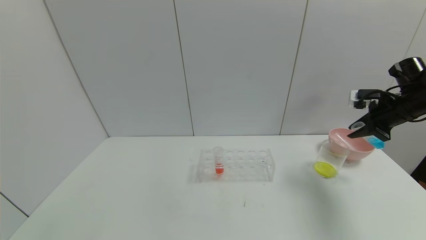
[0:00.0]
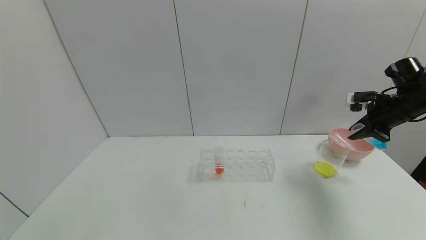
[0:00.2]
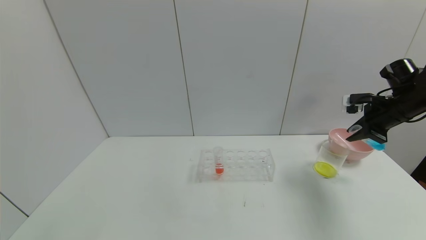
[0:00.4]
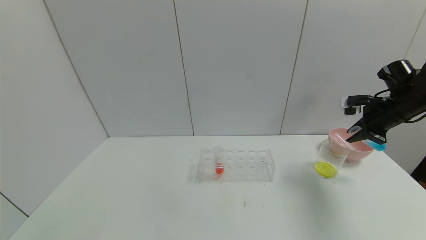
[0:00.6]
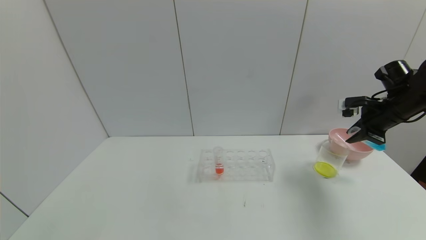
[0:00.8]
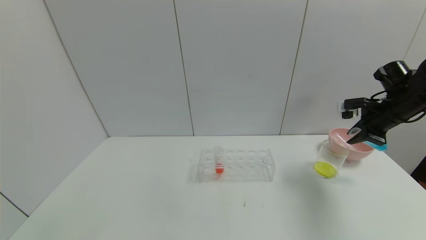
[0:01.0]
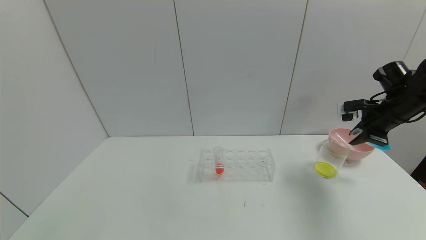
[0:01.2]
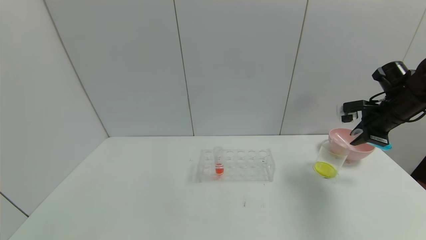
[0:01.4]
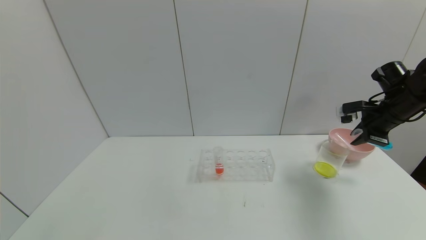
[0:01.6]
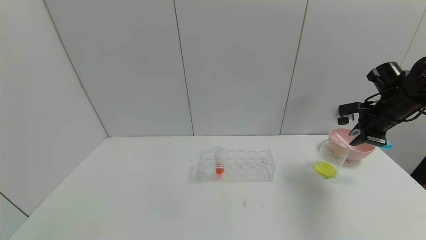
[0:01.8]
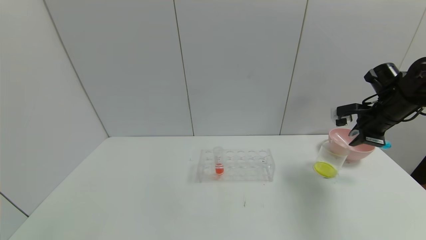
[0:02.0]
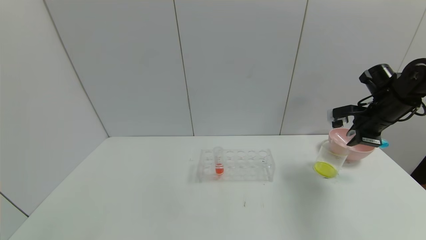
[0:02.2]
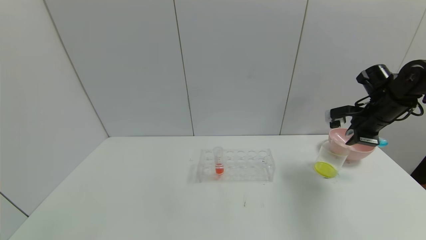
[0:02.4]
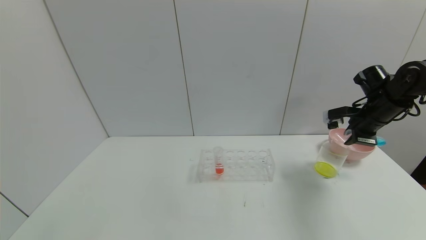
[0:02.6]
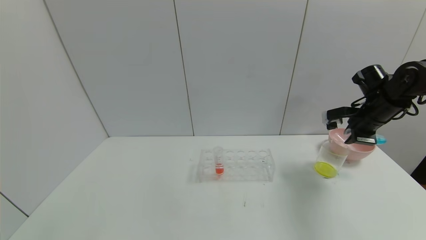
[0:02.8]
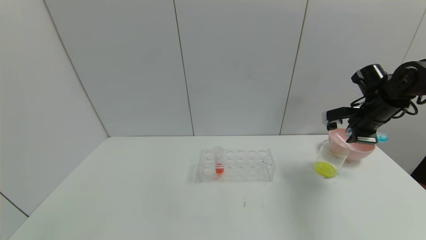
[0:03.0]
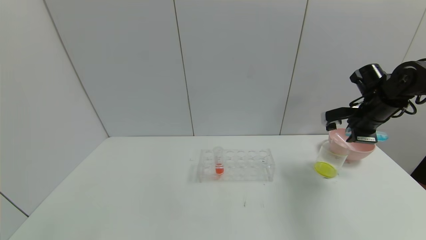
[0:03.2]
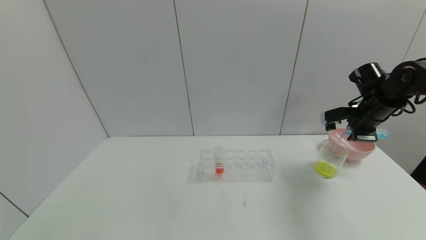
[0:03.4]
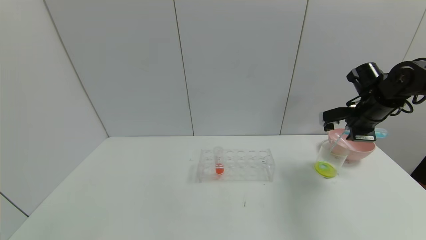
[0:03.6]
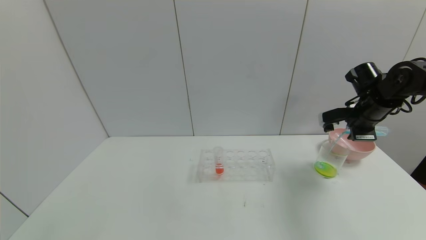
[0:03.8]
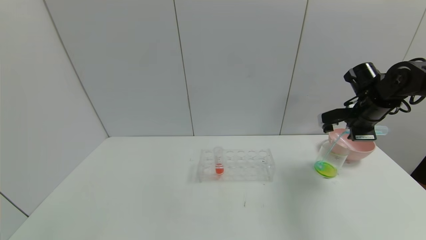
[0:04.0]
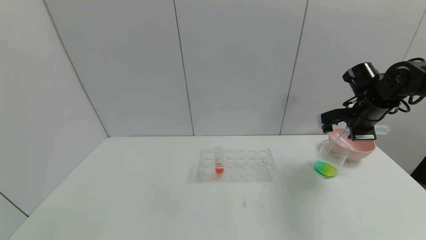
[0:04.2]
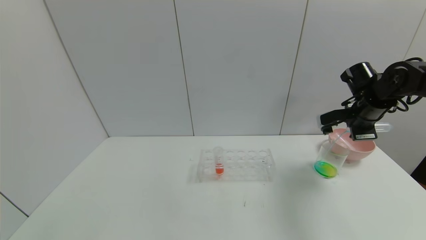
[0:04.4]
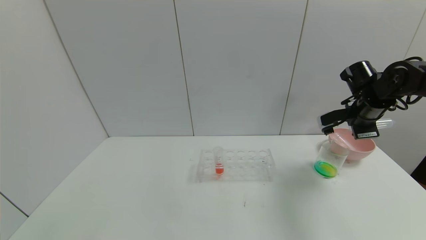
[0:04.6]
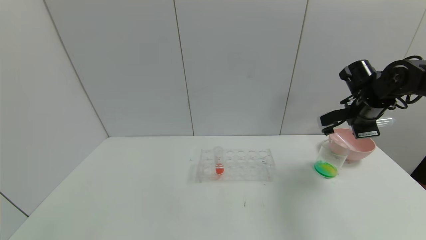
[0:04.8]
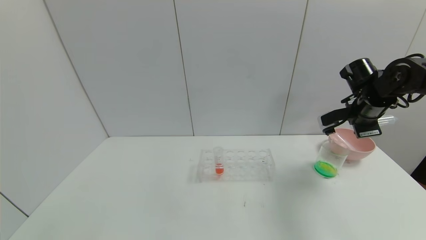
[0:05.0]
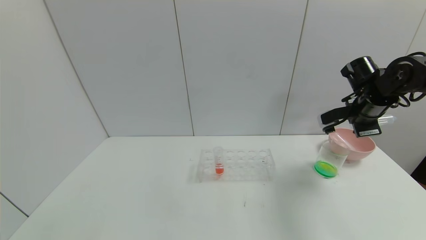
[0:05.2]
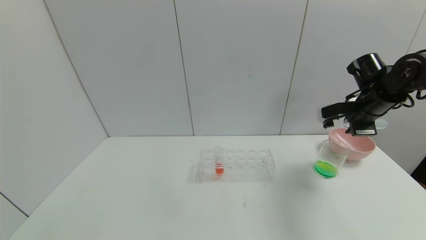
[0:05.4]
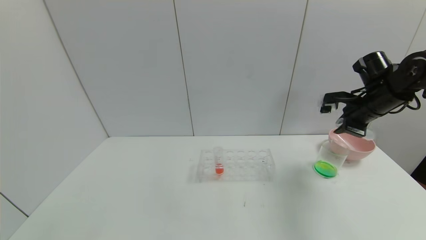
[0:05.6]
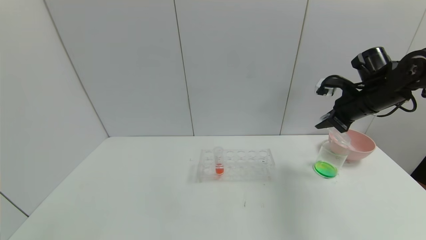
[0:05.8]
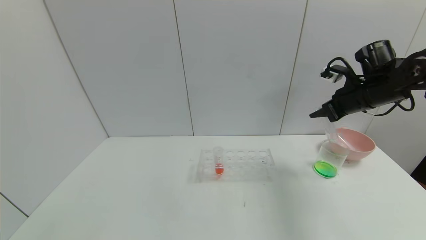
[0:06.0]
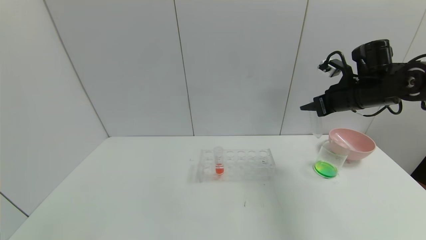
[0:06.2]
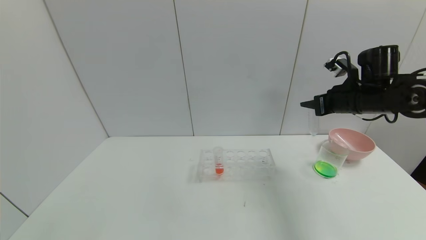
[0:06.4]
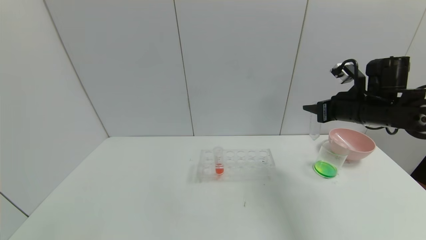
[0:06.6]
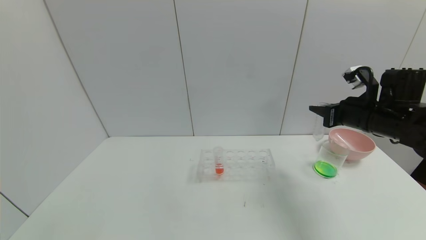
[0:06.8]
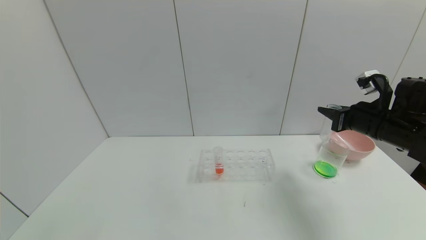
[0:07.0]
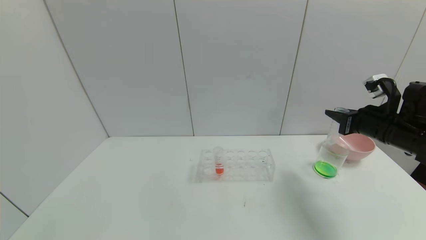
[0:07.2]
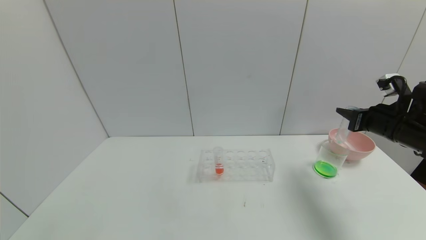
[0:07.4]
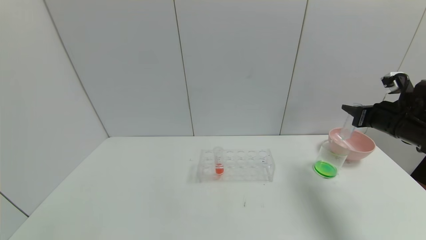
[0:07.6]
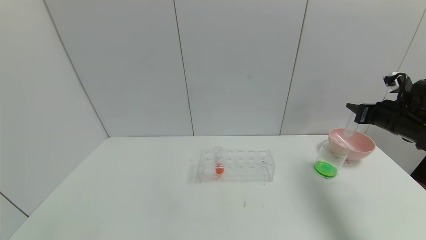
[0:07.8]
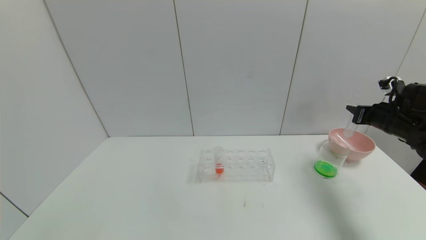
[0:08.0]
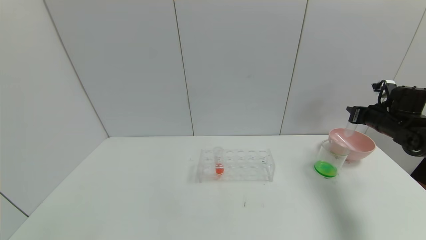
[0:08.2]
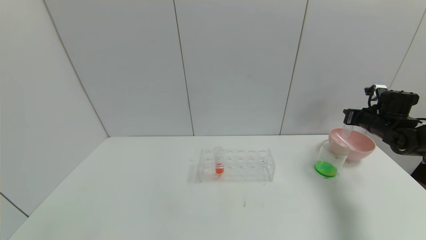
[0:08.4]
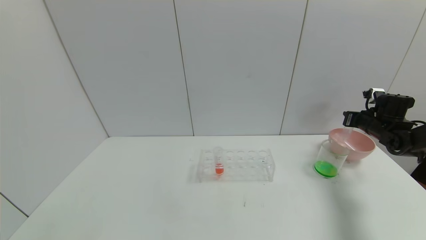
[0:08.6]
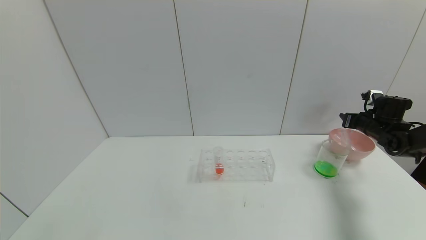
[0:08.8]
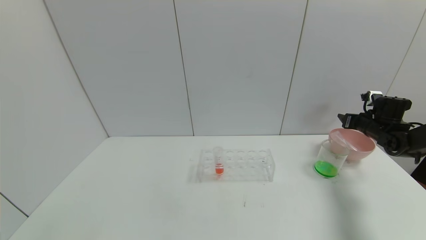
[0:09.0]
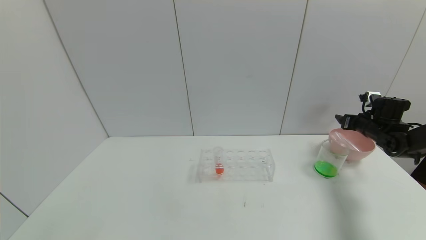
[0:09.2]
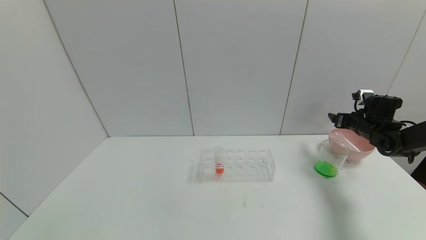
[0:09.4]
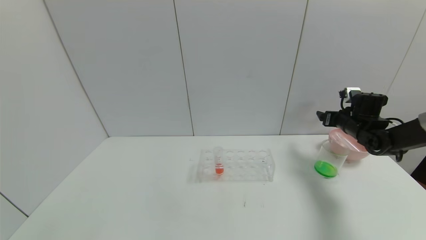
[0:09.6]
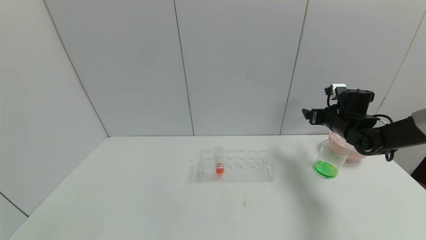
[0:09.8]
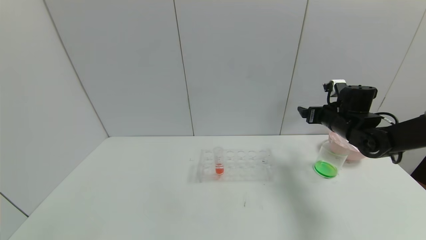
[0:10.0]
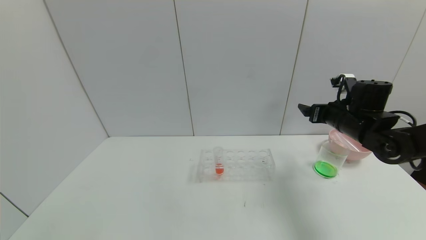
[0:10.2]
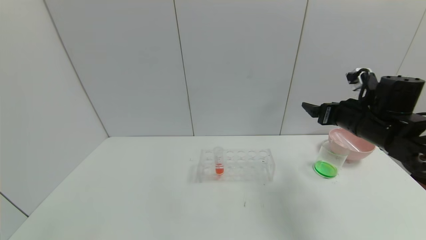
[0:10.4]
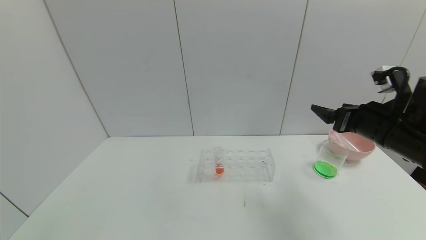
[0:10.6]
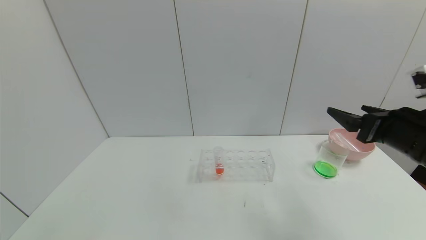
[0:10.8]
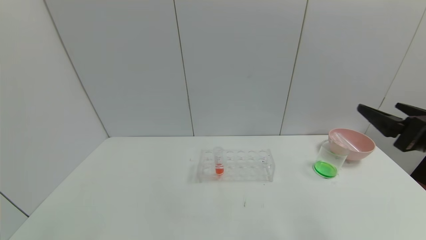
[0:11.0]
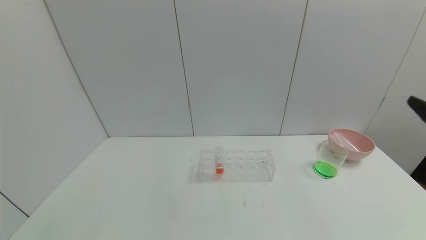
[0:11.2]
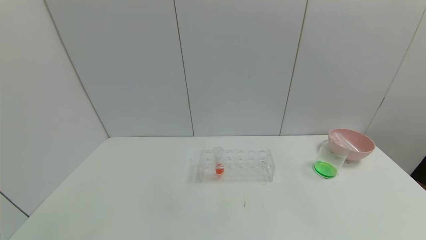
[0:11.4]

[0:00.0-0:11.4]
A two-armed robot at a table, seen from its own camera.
Task of the whole recording: pick up the test tube with yellow pigment and the test tube with blue pigment by grippers and pour them into the beaker.
Step, 0:00.0 to 0:07.8: Pour the blue reagent into the graduated cylinder with right gripper.
Step, 0:08.0 to 0:11.0: Place the test tube into the bowl with right gripper.
0:00.0 to 0:01.4: The grippers make only small movements.
0:01.4 to 0:02.8: The grippers move only a little.
0:02.8 to 0:04.2: The grippers stay close to where they were, moving slightly.
0:05.6 to 0:07.2: The right gripper is displaced backward by approximately 5 cm.
0:07.2 to 0:08.6: The right gripper goes approximately 15 cm forward, to the right and downward.
0:08.6 to 0:10.0: The right gripper is displaced to the left by approximately 15 cm, and opens its fingers.
0:10.0 to 0:11.4: The right gripper shifts approximately 35 cm backward.
